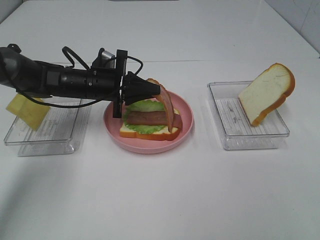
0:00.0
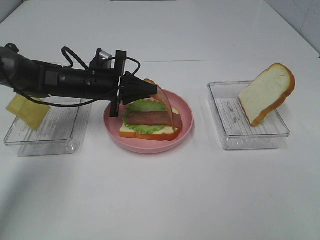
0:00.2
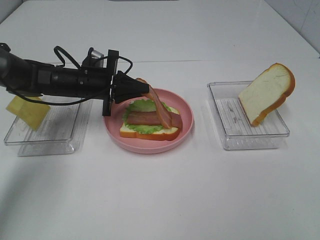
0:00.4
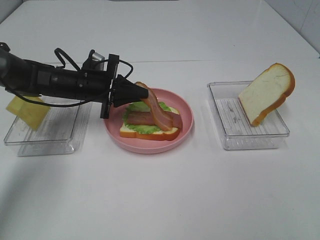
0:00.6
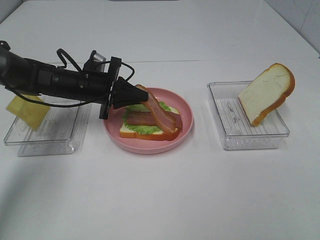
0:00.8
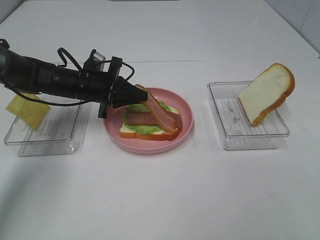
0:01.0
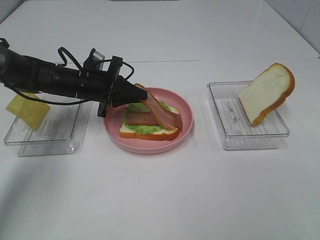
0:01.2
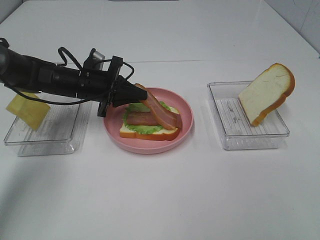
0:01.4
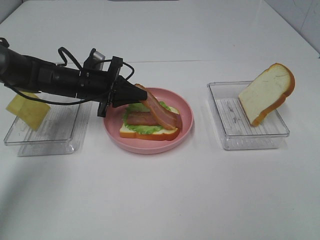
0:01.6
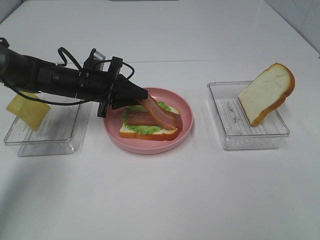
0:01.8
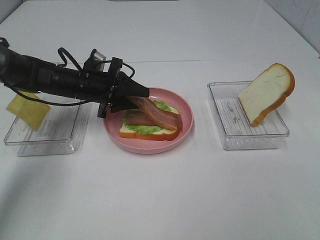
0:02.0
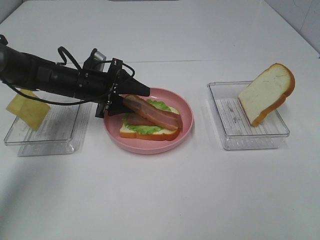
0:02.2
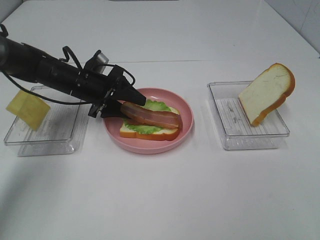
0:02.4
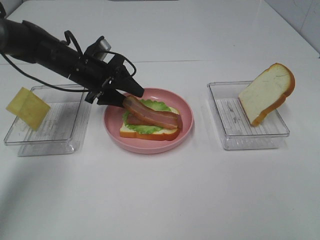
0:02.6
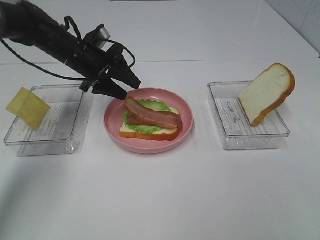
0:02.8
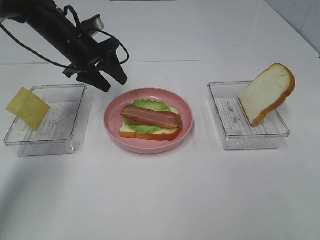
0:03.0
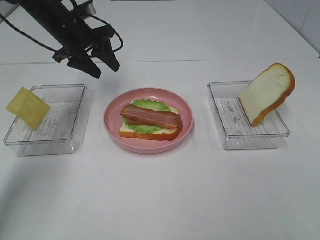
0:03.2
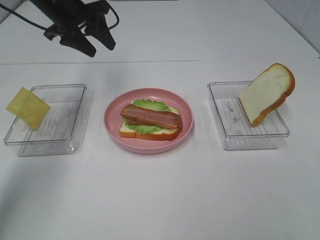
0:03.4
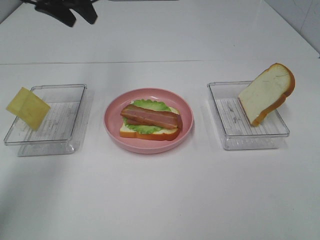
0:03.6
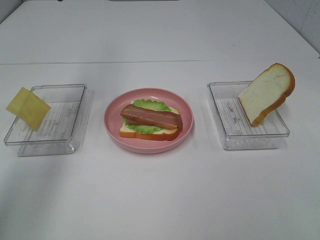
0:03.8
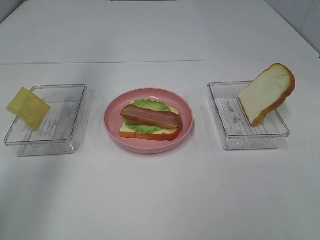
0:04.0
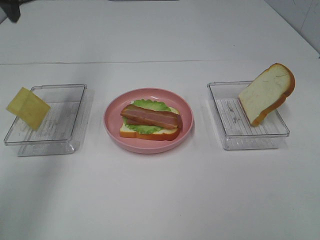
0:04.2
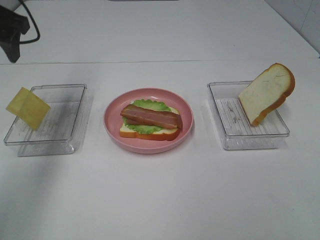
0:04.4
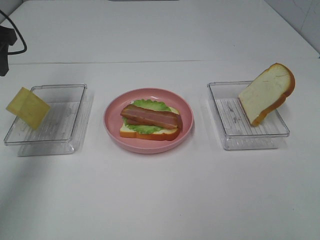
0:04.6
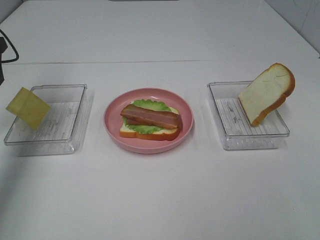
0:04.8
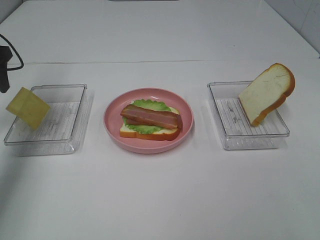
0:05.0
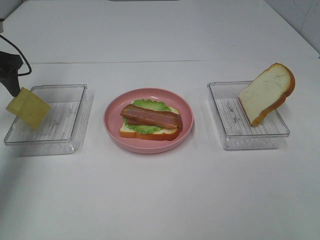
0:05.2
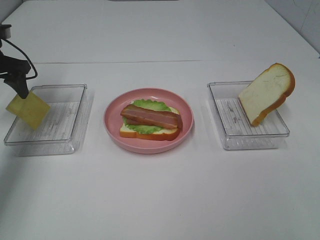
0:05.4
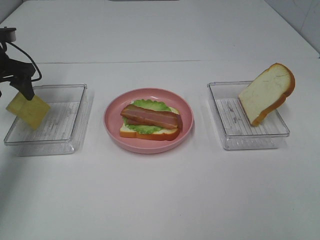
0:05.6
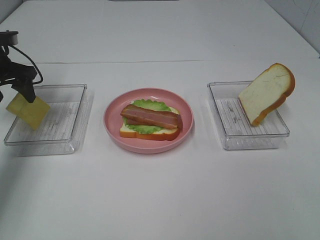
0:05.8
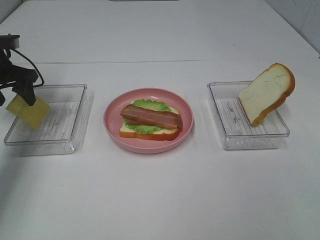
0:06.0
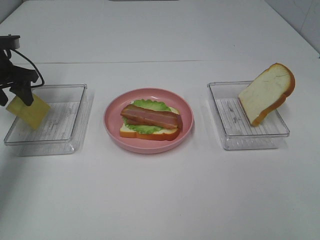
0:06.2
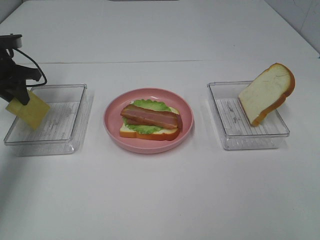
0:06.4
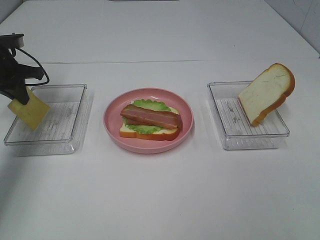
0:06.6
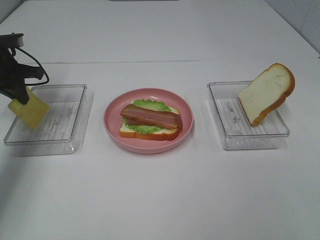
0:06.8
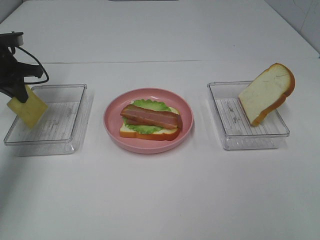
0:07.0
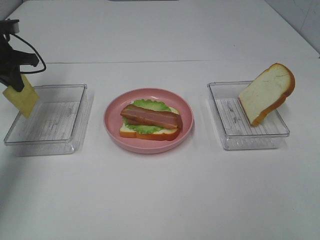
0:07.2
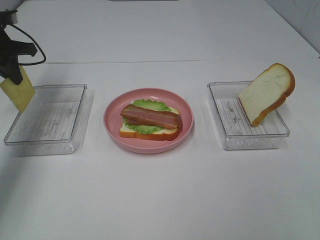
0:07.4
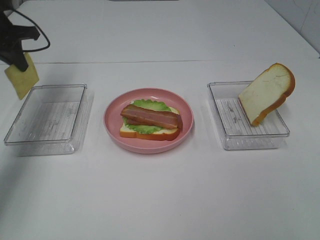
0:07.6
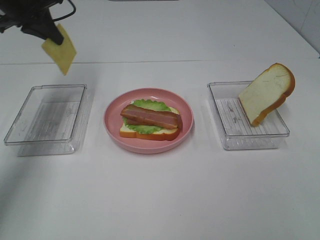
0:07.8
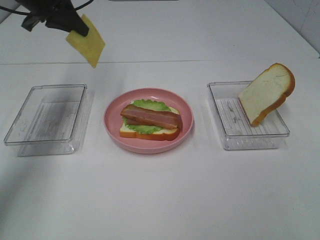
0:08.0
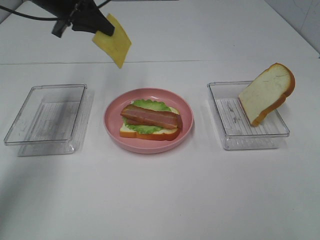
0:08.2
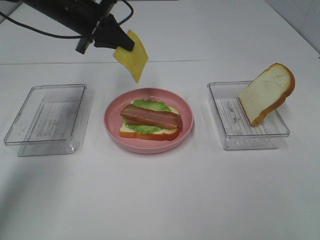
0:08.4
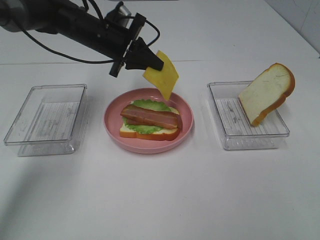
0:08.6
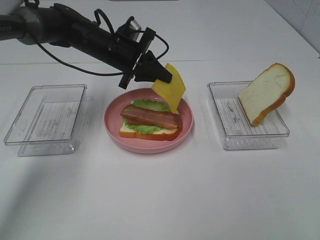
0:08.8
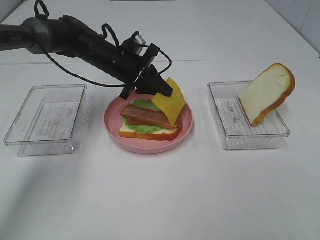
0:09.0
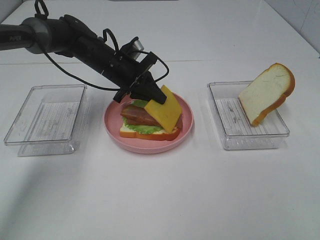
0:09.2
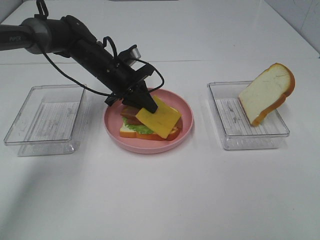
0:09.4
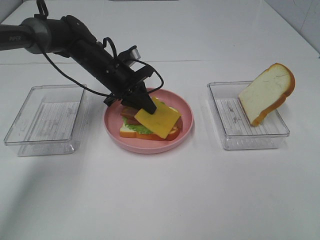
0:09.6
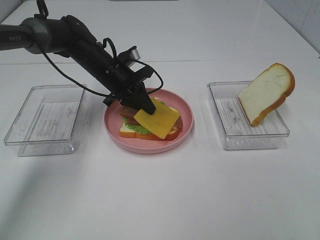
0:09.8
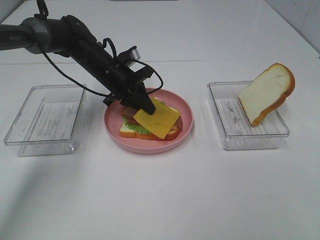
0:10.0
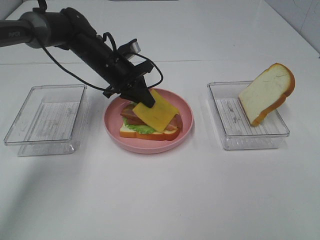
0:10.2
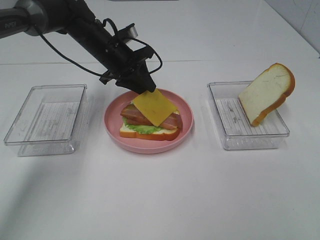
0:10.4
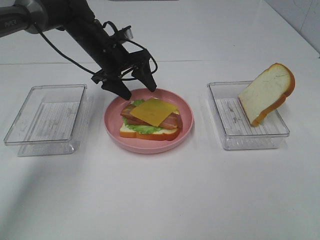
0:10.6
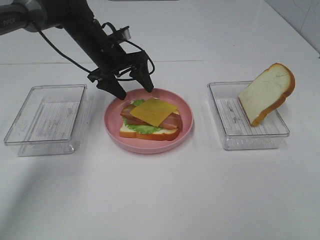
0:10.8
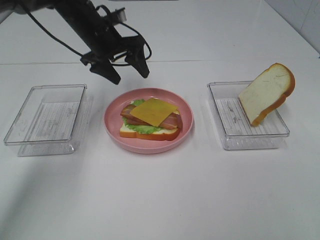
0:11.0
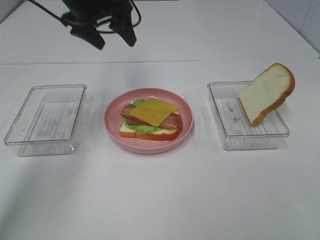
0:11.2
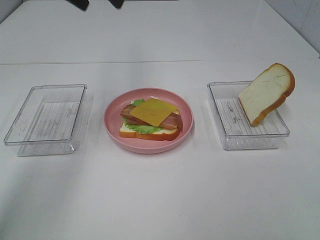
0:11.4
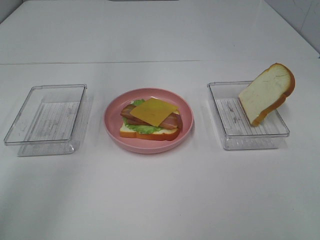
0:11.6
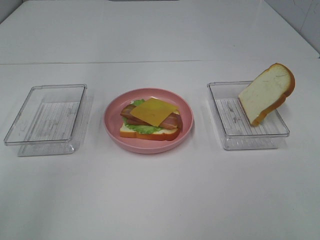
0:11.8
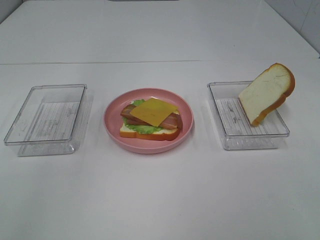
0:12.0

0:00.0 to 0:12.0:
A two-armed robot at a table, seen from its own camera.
Task of the whole recording: Make sandwiches.
Step, 0:00.0 to 0:02.8: Left hand:place bacon on bacon.
Step, 0:03.0 to 0:06.4: Left hand:grab the cheese slice.
Step, 0:06.6 to 0:10.4: Left hand:place the cheese slice on top of the bacon.
0:00.0 to 0:01.6: The grippers make only small movements.
0:01.6 to 0:03.0: The left gripper moves upward and forward, roughly 10 cm, and opens its fingers.
0:03.0 to 0:04.4: The left gripper is displaced upward, to the left and backward by roughly 15 cm.
0:04.4 to 0:06.0: The left gripper heads downward and to the left, covering roughly 15 cm.
0:06.0 to 0:07.6: The left gripper shifts roughly 10 cm upward, and closes its fingers.
0:07.6 to 0:09.0: The left gripper heads to the right and downward, covering approximately 25 cm.
0:09.0 to 0:10.4: The left gripper opens up.
0:10.4 to 0:12.0: The left gripper travels upward and backward by about 50 cm, and opens up.

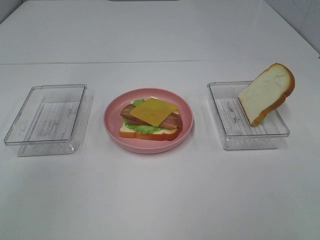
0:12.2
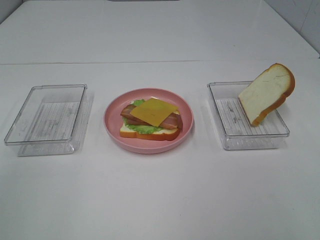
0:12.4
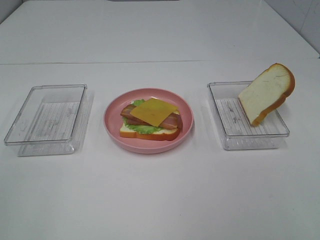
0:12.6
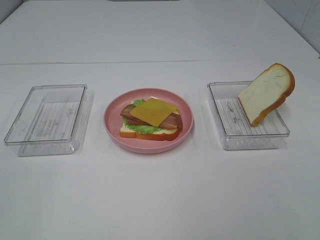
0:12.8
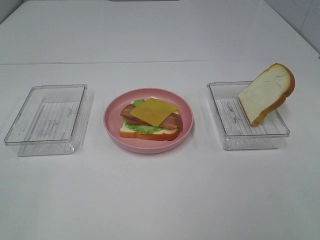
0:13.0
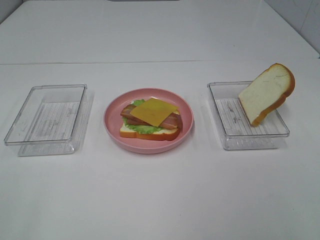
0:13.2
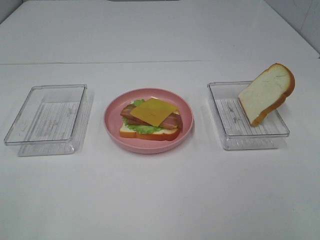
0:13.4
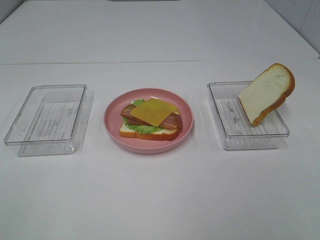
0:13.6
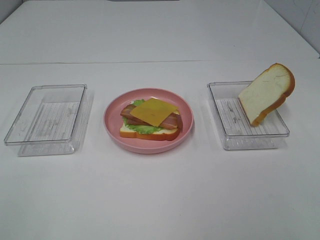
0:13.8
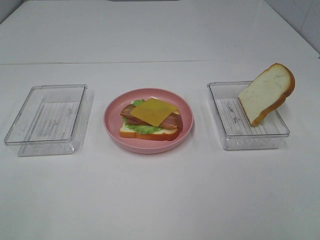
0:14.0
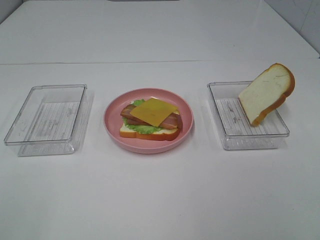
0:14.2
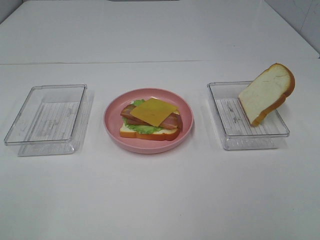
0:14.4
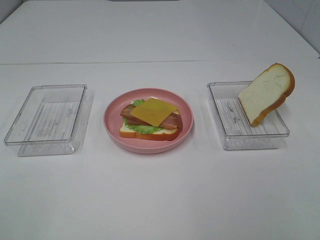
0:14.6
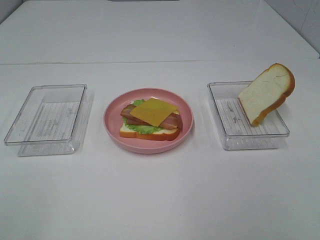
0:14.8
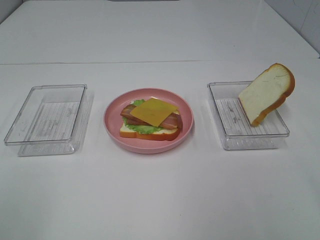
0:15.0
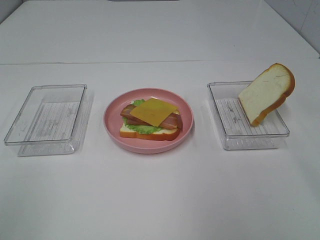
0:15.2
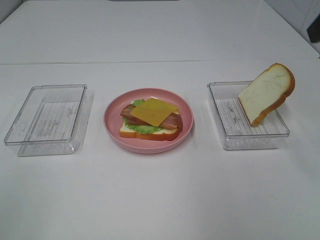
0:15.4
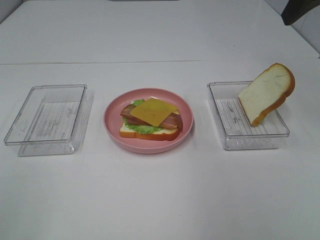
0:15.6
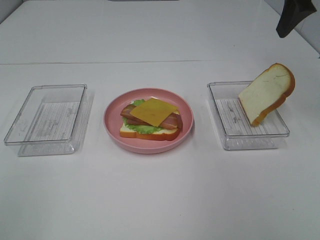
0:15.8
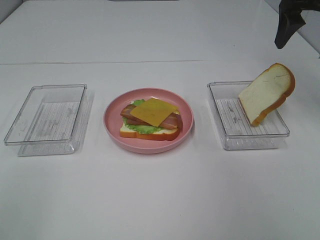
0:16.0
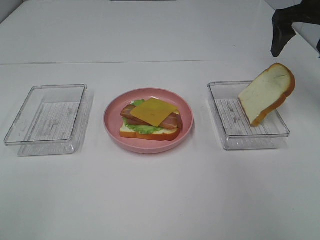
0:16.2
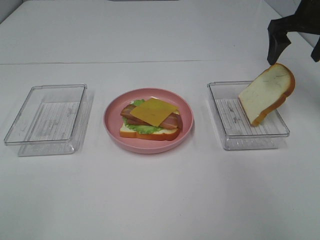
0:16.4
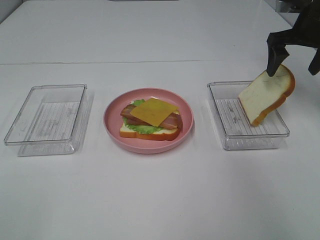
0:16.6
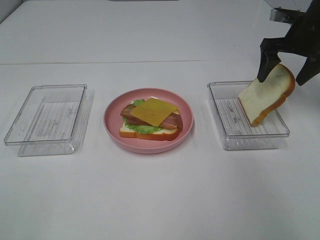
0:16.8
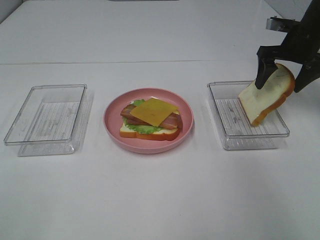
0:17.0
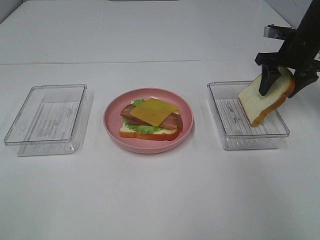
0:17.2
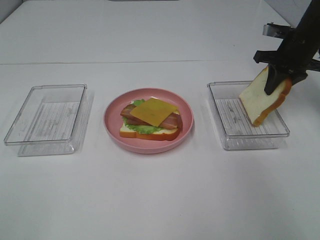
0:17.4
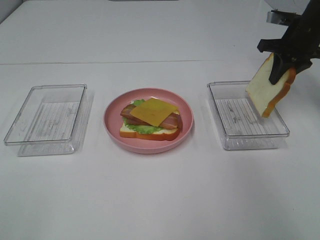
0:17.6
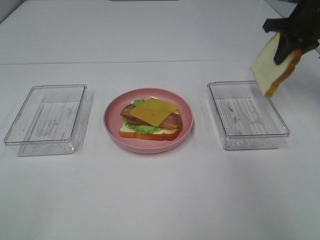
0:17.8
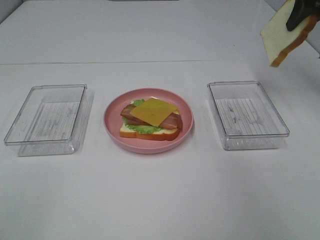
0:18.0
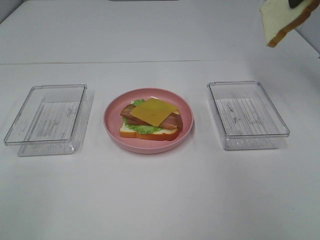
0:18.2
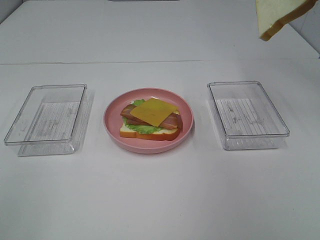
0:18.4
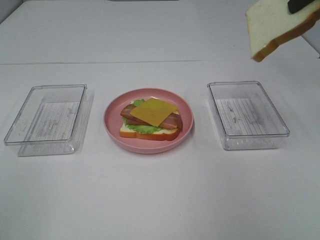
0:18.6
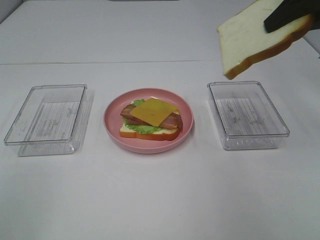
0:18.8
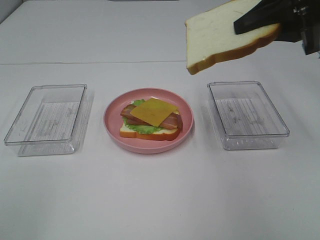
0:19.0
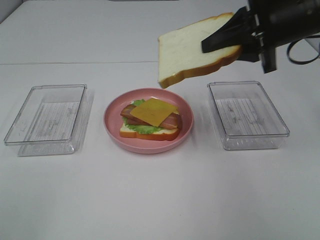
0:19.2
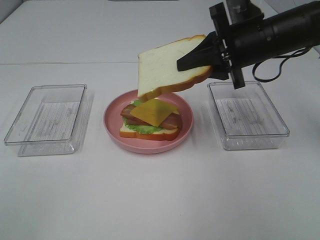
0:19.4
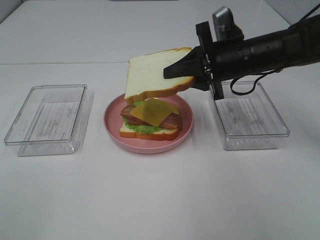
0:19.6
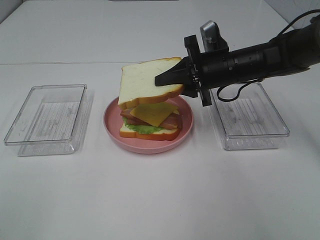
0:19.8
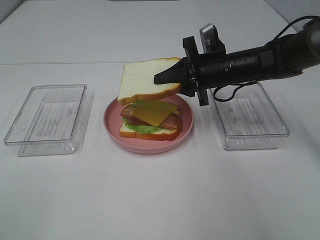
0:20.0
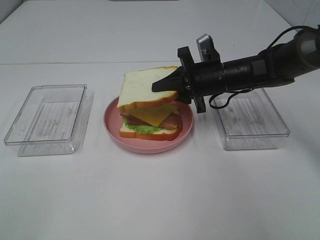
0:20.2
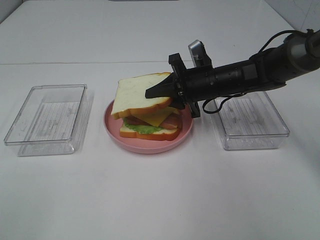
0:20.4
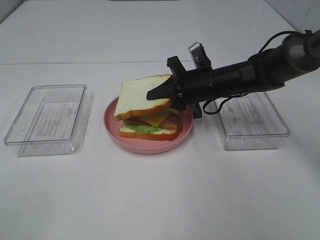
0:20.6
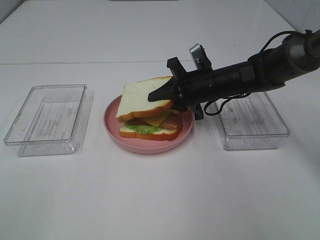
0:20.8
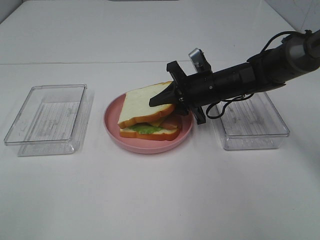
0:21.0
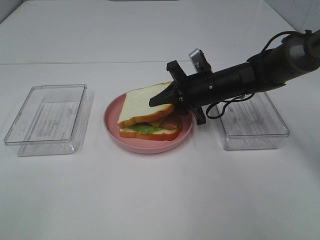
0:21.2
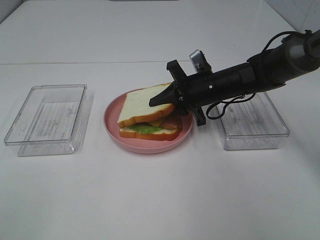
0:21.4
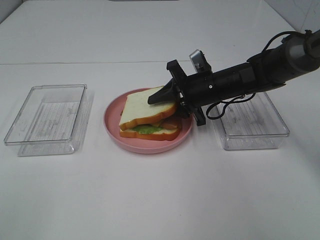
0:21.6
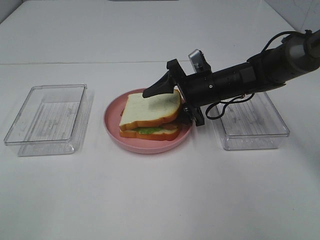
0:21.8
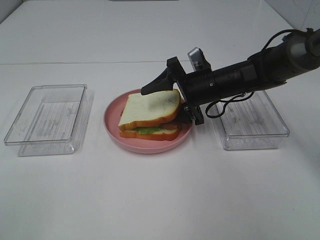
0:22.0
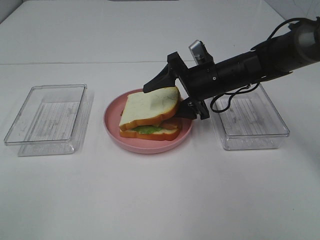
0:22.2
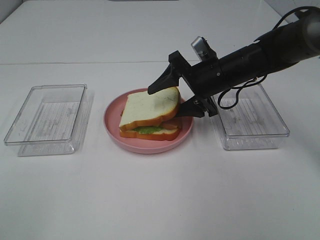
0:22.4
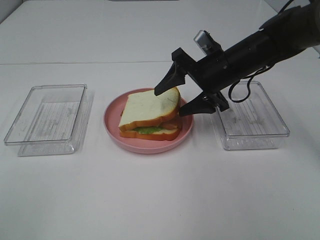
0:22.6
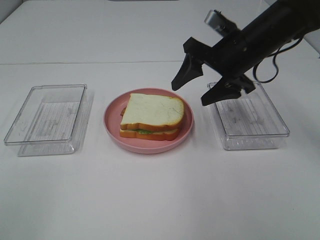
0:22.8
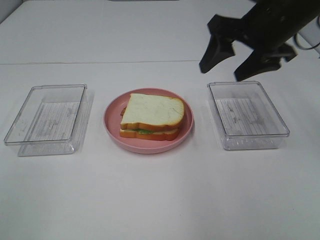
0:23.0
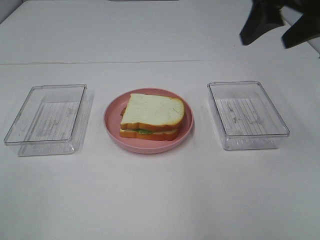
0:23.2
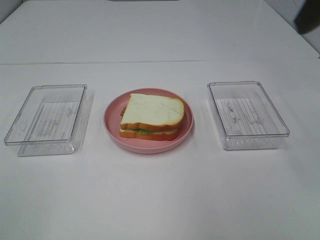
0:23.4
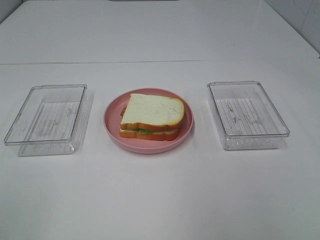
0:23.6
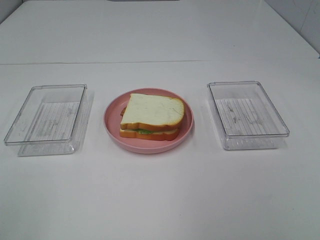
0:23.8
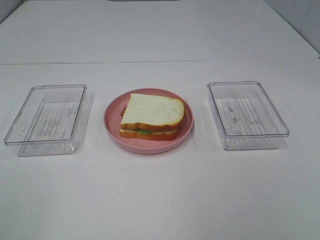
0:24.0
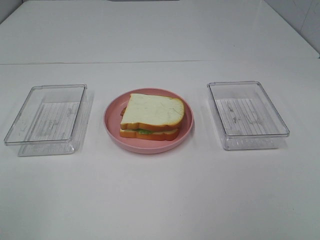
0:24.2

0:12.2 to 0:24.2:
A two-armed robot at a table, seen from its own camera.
Task of the whole recording: Make sandwiches.
Step, 0:12.2 to 0:17.4: Right hand:grab the bread slice.
Step, 0:17.6 to 0:22.6: Right hand:place the bread slice on the cheese slice.
0:12.2 to 0:13.8: The left gripper heads downward and backward, covering roughly 35 cm.
0:15.2 to 0:16.6: The right gripper moves forward and downward, approximately 30 cm.
0:16.6 to 0:18.2: The right gripper travels upward by approximately 15 cm, and closes.
0:18.2 to 0:19.8: The right gripper moves downward and to the left, roughly 25 cm.
0:19.8 to 0:21.2: The right gripper travels downward by some 5 cm.
0:21.2 to 0:22.6: The right gripper goes approximately 5 cm upward, and opens its fingers.
0:22.6 to 0:24.2: The right gripper heads backward, upward and to the right, covering about 50 cm.
